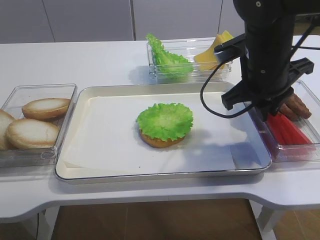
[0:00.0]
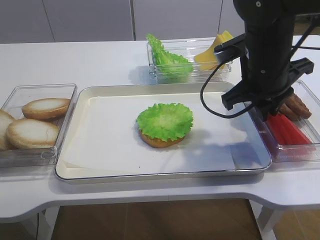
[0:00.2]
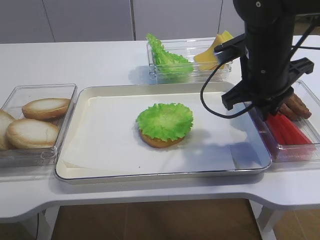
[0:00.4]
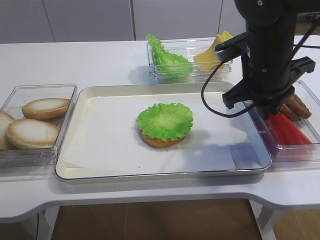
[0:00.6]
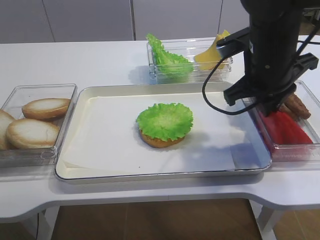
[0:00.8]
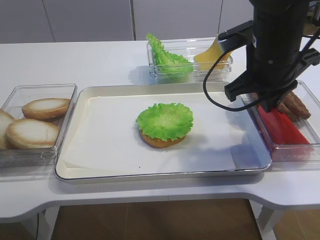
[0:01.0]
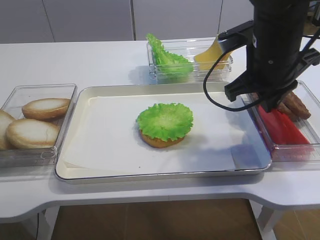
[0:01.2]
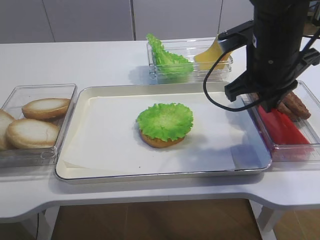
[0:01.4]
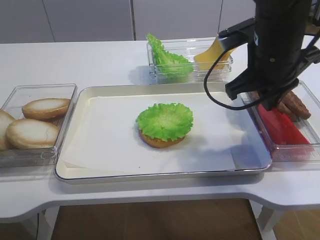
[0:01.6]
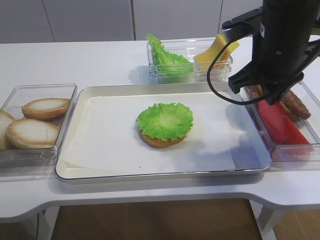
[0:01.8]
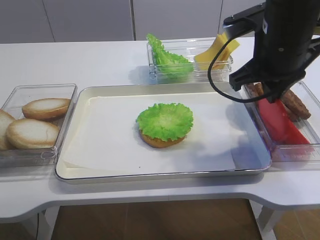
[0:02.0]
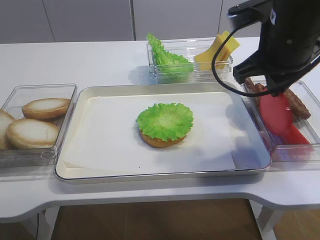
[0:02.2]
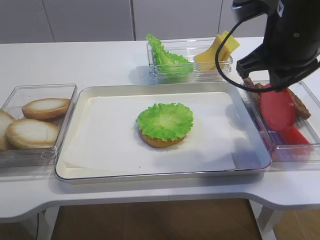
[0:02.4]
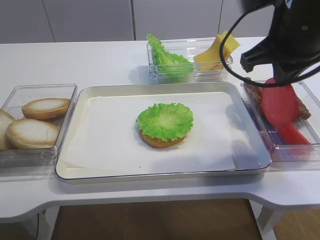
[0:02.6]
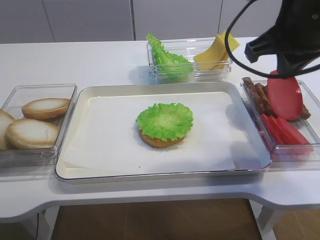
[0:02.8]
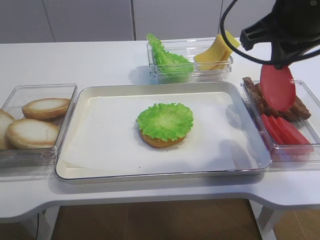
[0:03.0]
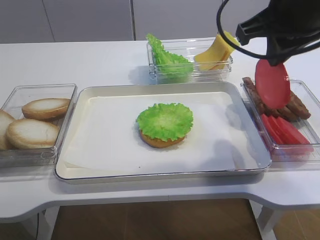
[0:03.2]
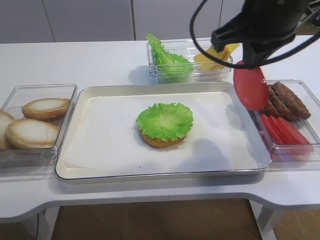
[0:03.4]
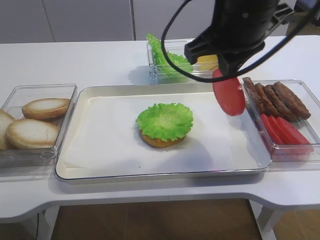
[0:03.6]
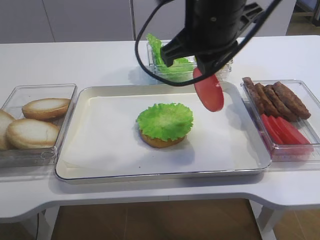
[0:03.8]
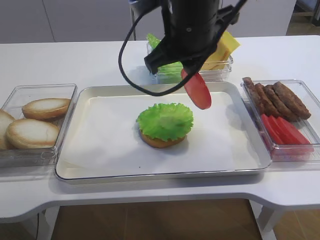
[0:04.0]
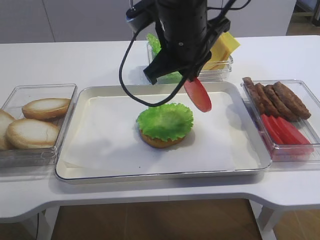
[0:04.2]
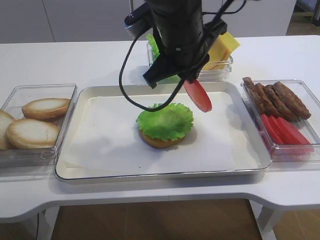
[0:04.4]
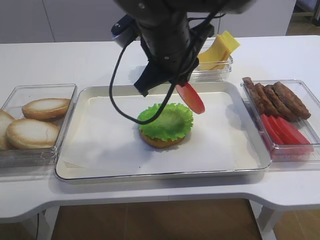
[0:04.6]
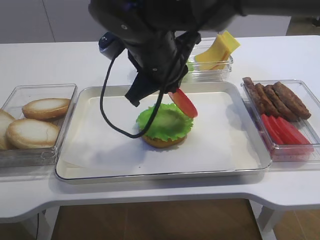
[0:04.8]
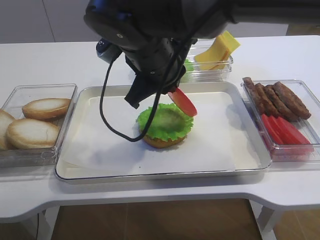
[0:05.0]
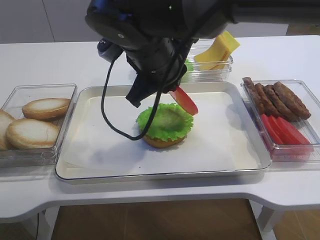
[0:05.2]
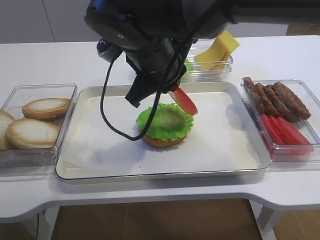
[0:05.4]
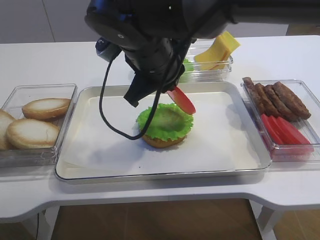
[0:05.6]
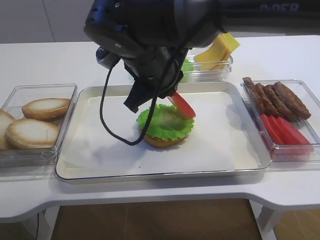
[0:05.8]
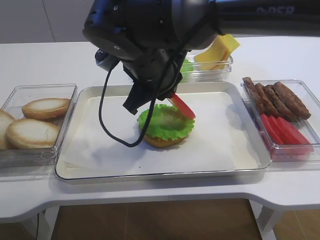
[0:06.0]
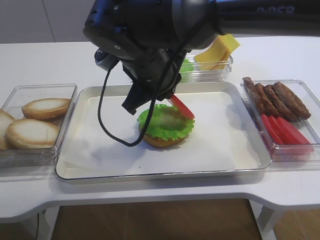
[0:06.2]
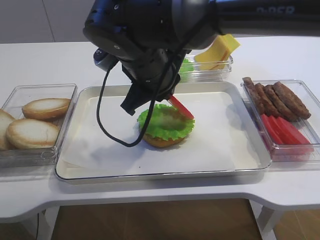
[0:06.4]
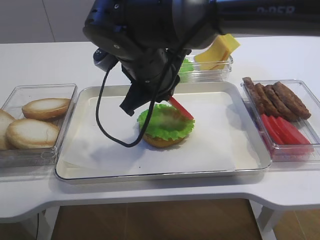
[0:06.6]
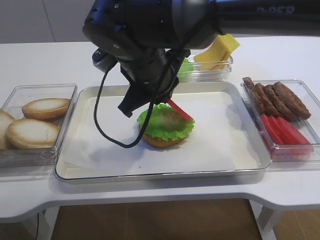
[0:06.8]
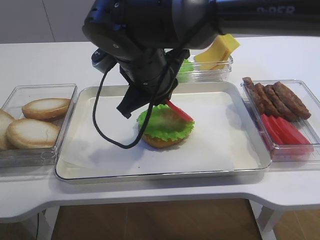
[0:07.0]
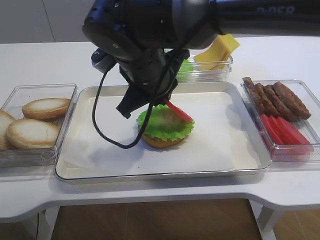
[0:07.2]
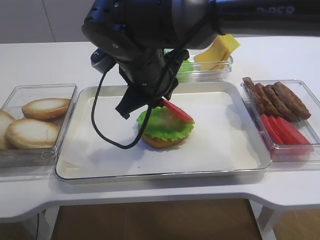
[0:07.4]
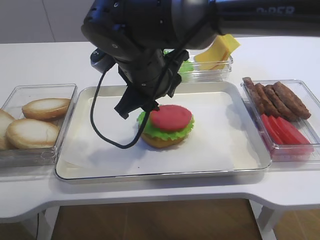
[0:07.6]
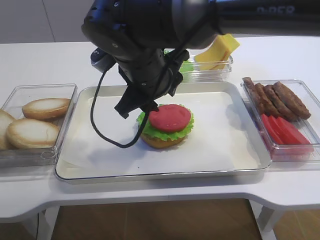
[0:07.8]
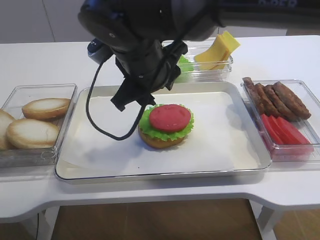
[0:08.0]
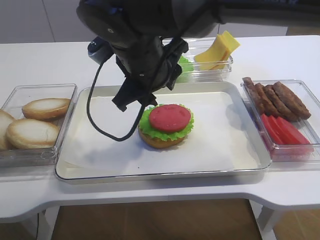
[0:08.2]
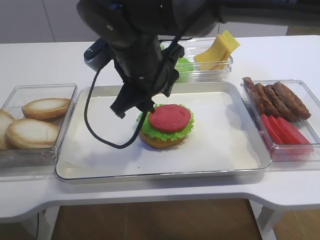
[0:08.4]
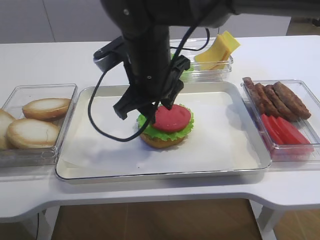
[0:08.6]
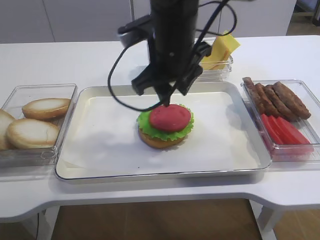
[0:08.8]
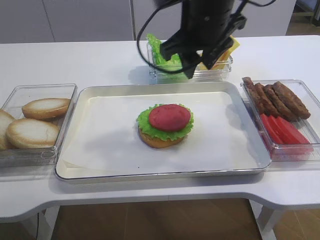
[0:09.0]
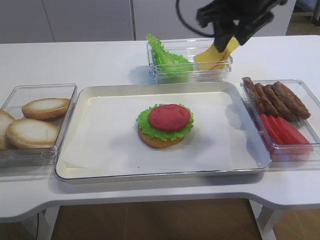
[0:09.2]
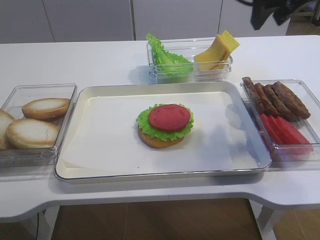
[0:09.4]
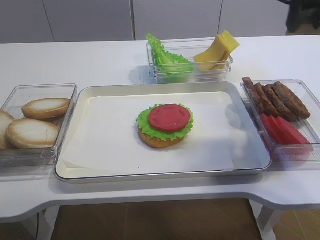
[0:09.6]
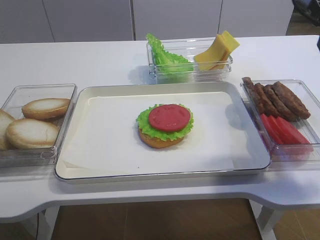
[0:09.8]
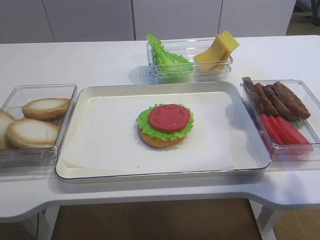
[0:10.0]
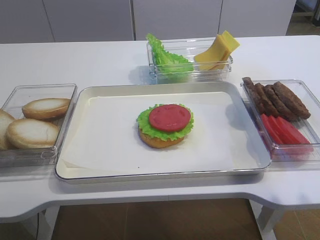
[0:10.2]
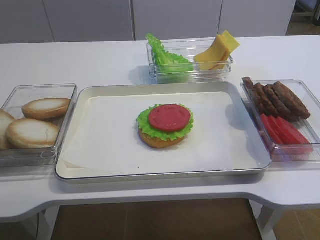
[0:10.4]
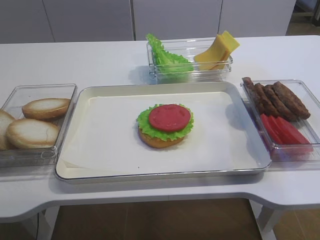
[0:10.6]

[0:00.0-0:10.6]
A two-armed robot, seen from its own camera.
Step, 0:00.0 to 0:03.0: Pick up the tomato slice with the right gripper.
Step, 0:03.4 to 0:08.8: Place the tomato slice on the lettuce leaf with the right gripper.
0:00.0 to 0:01.6: There are only small adjustments of the grippers.
0:01.6 to 0:03.0: The right gripper heads upward, covering some 10 cm.
0:03.0 to 0:04.6: The right gripper shifts approximately 15 cm to the left and downward.
0:04.6 to 0:06.0: There are only small adjustments of the grippers.
0:06.0 to 0:07.6: The right gripper opens its fingers.
0:07.6 to 0:09.0: The right gripper goes roughly 10 cm to the right and upward.
0:09.0 to 0:10.6: The right gripper heads to the right and backward, covering some 30 cm.

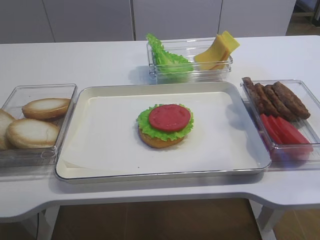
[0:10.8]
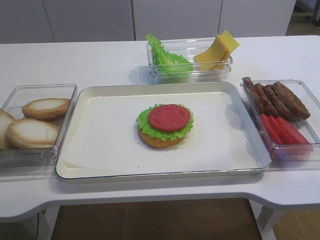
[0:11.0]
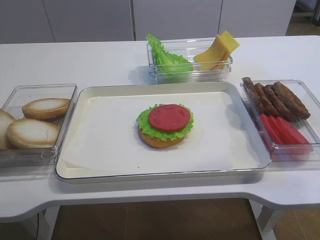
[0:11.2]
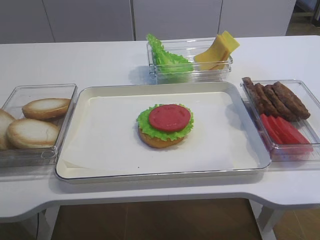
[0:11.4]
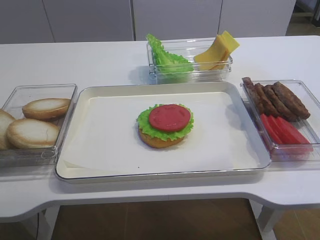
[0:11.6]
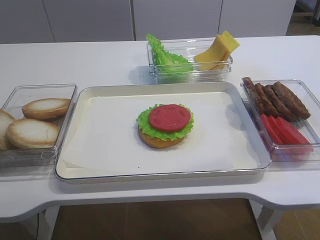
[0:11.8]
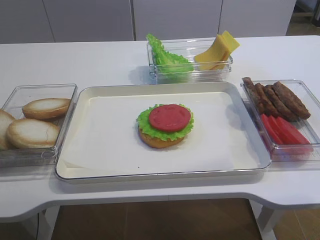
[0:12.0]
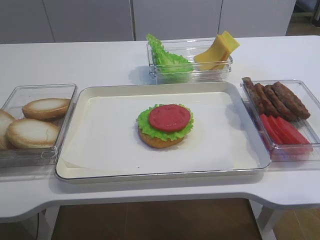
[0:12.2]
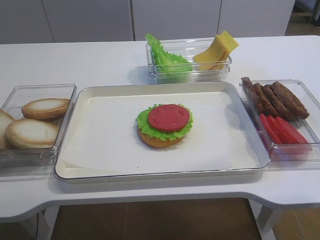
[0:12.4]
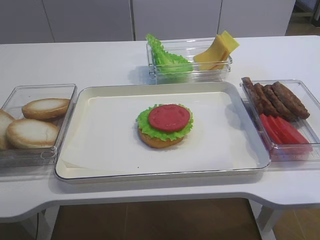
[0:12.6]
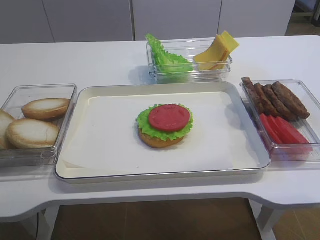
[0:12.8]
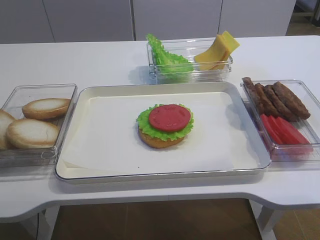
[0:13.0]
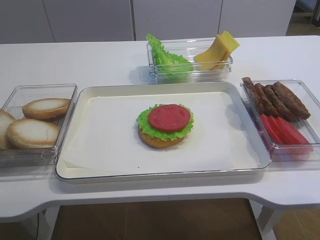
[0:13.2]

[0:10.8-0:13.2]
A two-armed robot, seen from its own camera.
0:10.8 to 0:12.0: The right gripper is displaced downward and backward by some 10 cm.
